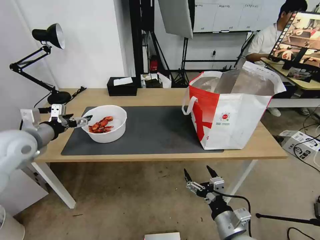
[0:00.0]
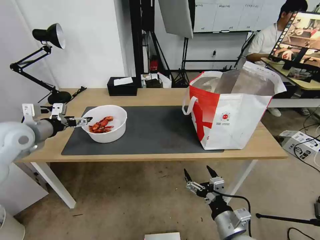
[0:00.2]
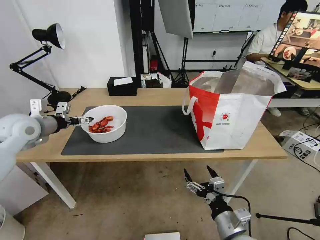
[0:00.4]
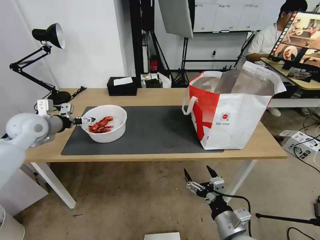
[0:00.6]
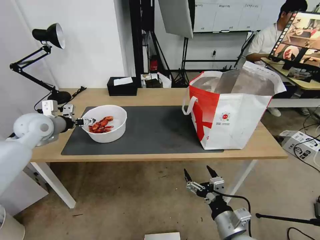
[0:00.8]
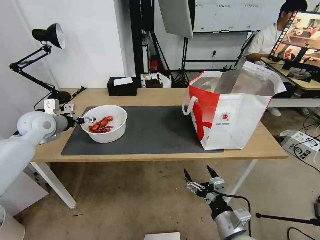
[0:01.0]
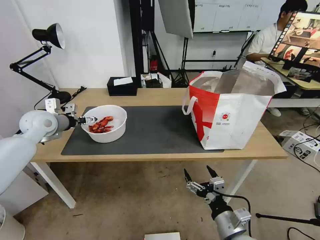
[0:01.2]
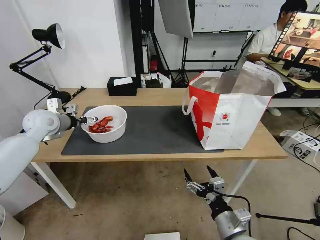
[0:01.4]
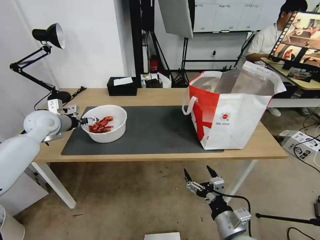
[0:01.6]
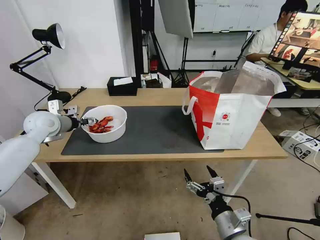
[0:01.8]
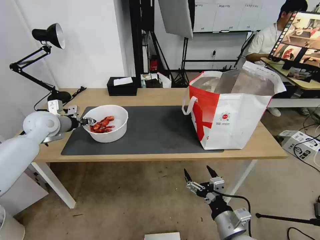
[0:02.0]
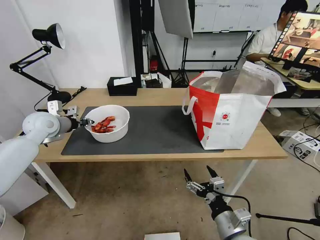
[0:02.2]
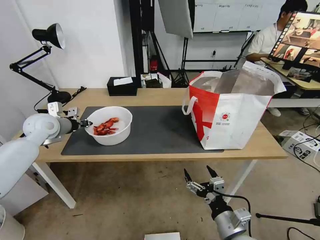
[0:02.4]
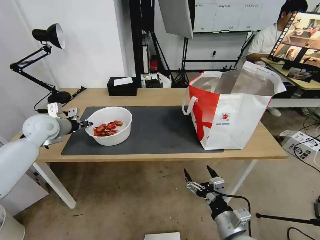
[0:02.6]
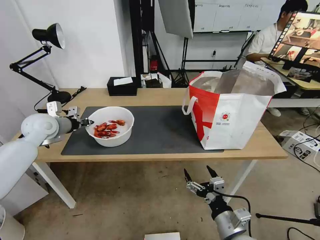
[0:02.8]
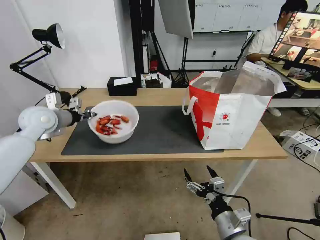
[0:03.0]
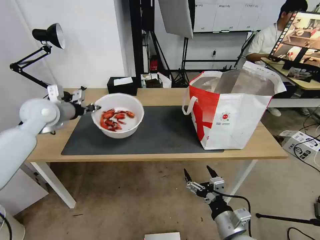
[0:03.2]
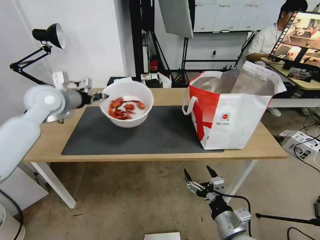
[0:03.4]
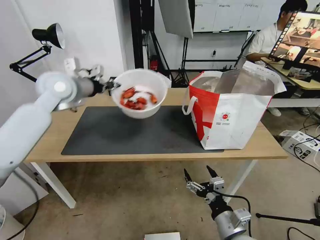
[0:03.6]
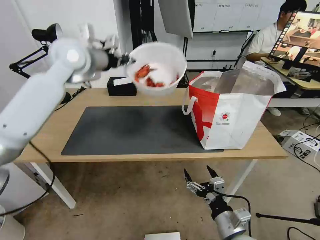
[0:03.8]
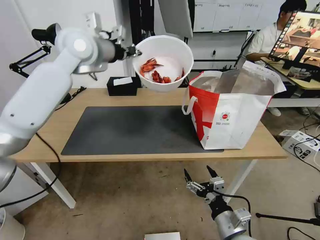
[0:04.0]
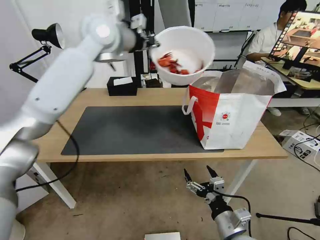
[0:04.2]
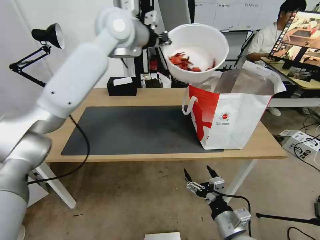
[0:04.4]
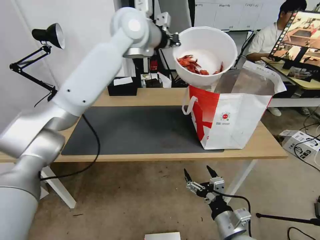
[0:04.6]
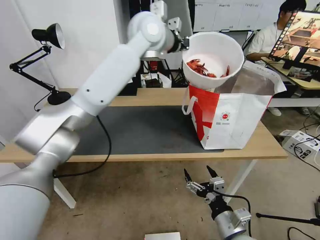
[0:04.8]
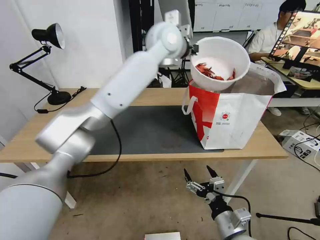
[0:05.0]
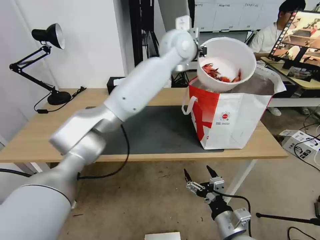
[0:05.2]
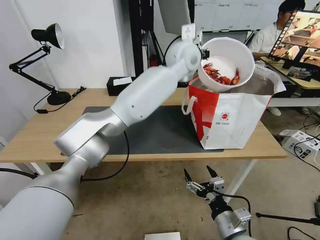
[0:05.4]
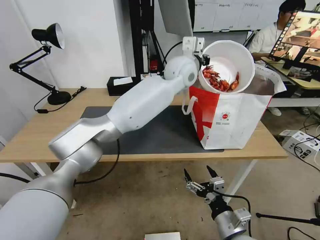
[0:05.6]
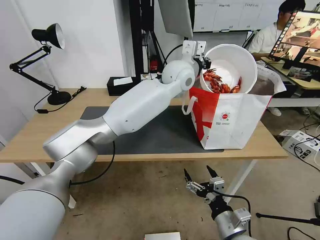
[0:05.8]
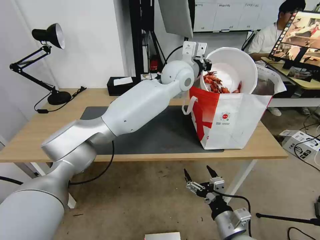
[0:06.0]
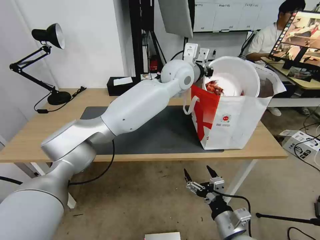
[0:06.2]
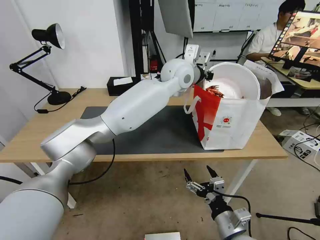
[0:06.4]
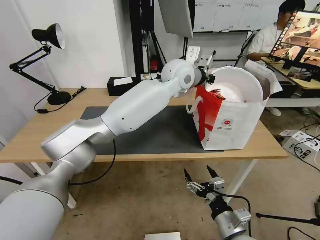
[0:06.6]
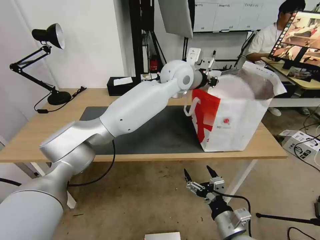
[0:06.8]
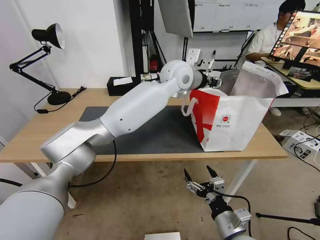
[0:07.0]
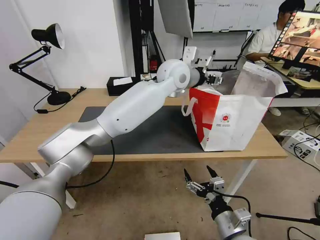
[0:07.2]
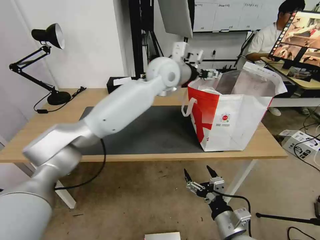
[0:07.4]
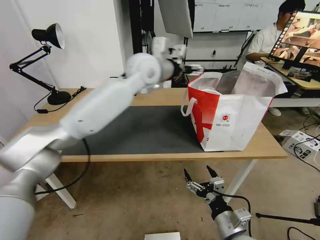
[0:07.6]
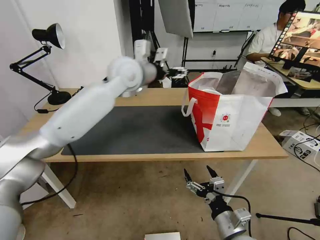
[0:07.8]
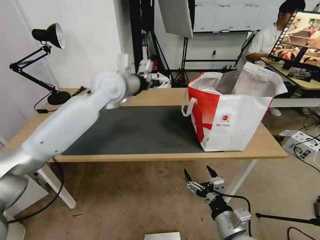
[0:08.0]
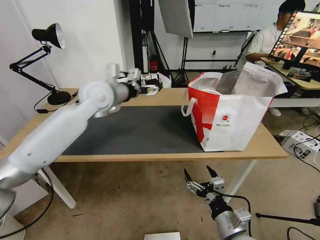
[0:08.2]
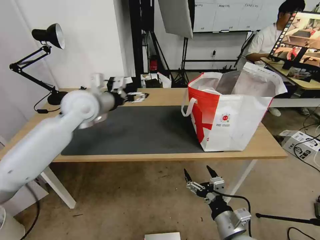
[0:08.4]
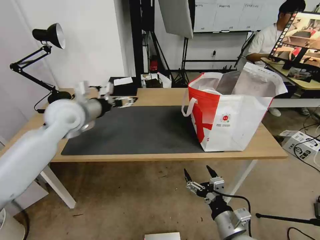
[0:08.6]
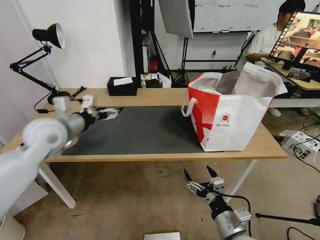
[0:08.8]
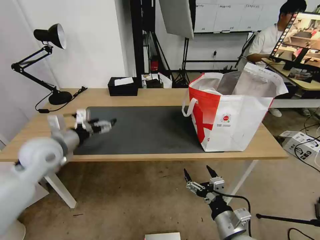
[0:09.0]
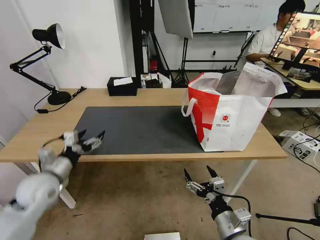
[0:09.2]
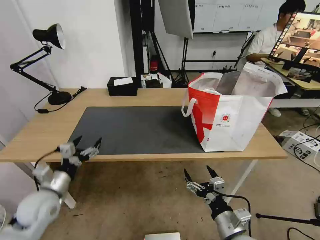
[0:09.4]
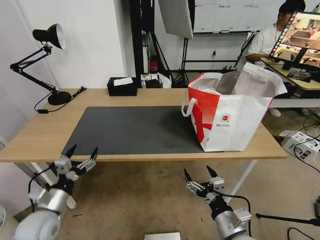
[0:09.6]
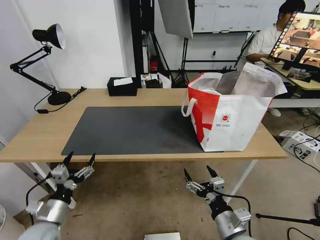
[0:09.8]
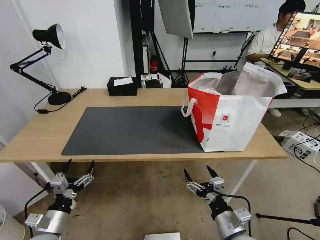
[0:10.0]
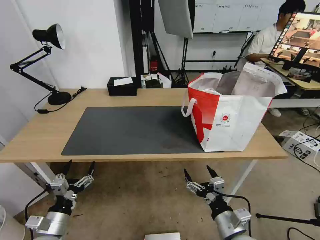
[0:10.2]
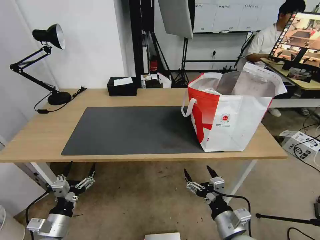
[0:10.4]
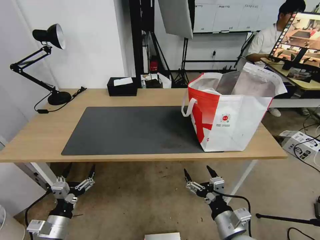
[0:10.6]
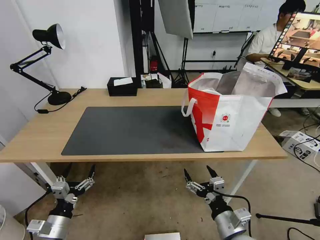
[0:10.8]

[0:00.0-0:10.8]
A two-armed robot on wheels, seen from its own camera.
Task of the whole recording: Pick up the trash from the table and place it into the takeout bag.
0:00.0 to 0:01.6: The left gripper goes about 10 cm forward.
0:01.6 to 0:03.0: The left gripper closes its fingers.
0:03.0 to 0:04.6: The left gripper travels to the right and upward by some 35 cm.
0:04.6 to 0:06.2: The left gripper goes approximately 15 cm to the right and downward.
0:06.2 to 0:07.8: The left gripper shifts some 15 cm to the left, and opens up.
0:07.8 to 0:09.2: The left gripper moves to the left, downward and backward, approximately 35 cm.
0:09.2 to 0:10.8: The left gripper travels downward and backward by roughly 30 cm.
